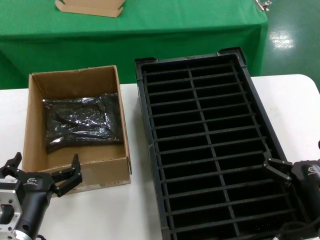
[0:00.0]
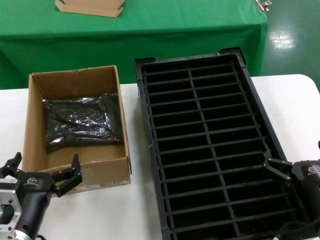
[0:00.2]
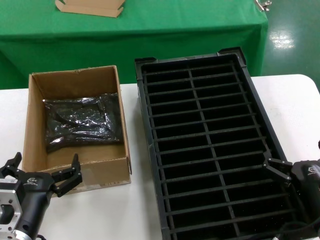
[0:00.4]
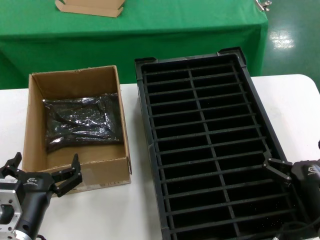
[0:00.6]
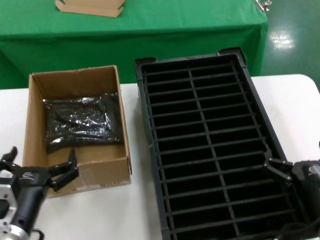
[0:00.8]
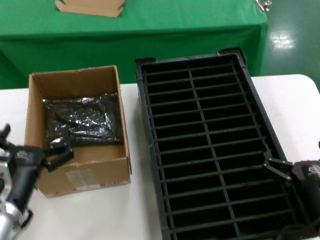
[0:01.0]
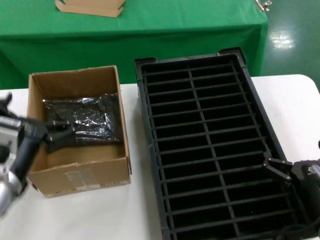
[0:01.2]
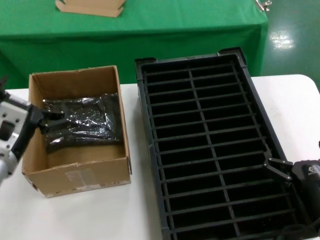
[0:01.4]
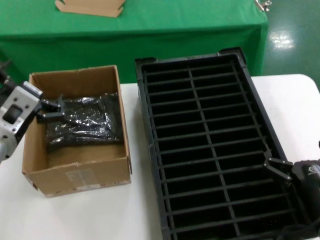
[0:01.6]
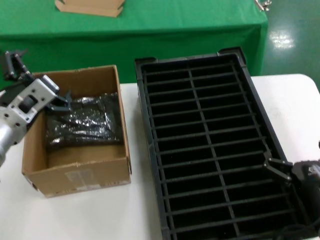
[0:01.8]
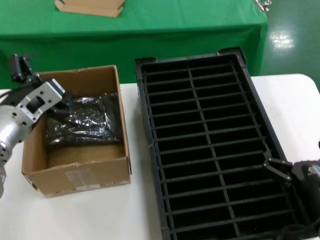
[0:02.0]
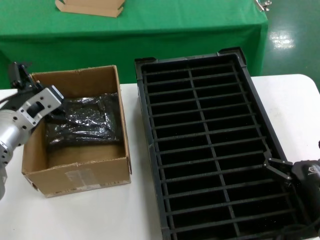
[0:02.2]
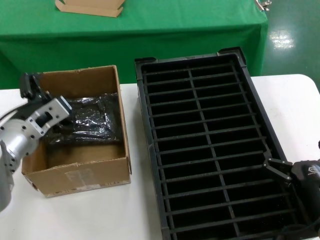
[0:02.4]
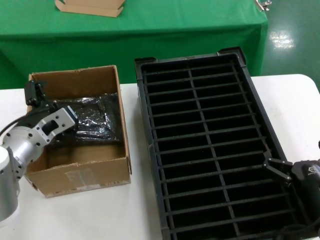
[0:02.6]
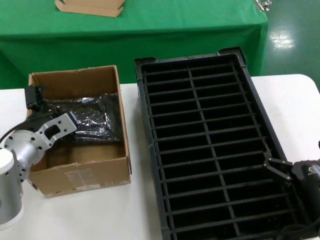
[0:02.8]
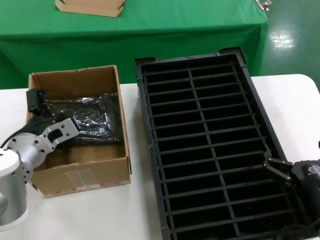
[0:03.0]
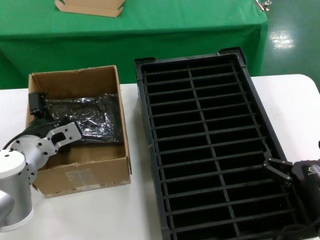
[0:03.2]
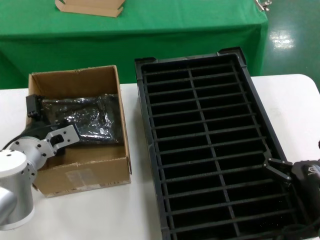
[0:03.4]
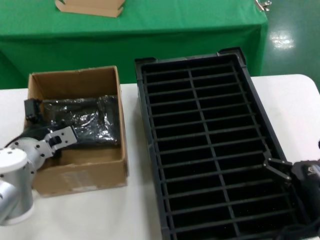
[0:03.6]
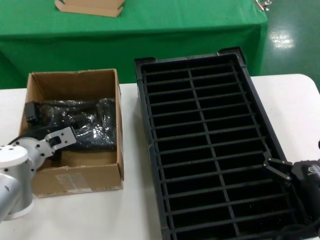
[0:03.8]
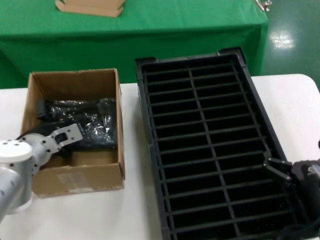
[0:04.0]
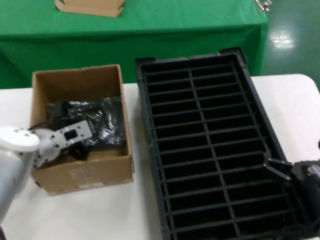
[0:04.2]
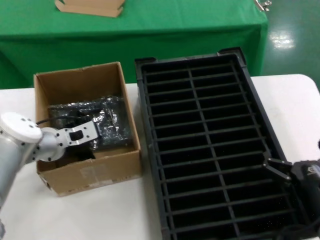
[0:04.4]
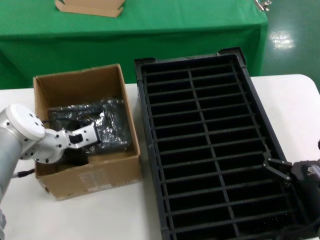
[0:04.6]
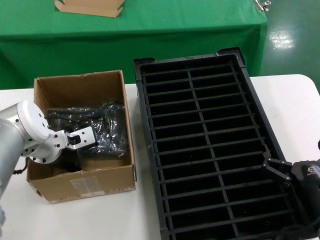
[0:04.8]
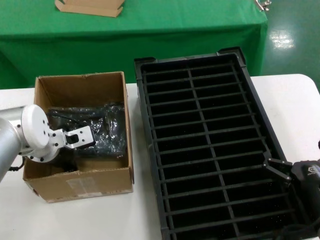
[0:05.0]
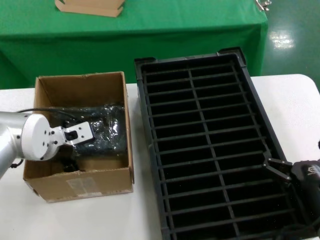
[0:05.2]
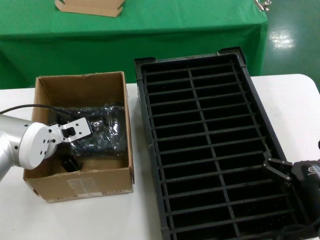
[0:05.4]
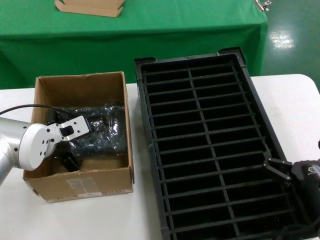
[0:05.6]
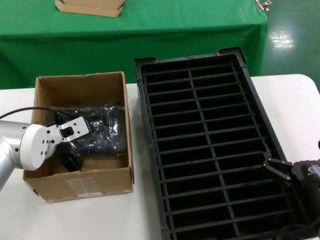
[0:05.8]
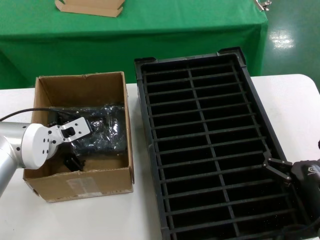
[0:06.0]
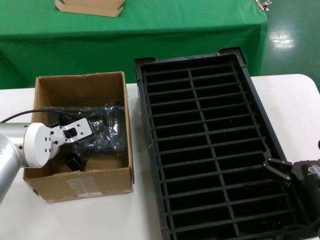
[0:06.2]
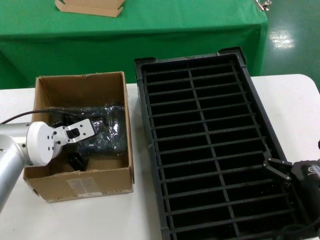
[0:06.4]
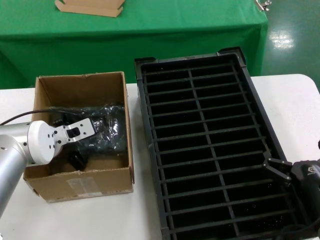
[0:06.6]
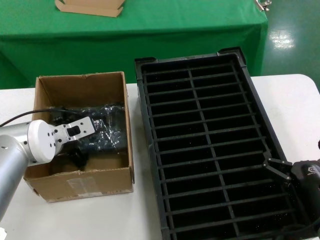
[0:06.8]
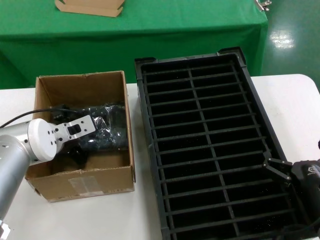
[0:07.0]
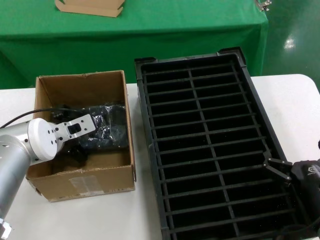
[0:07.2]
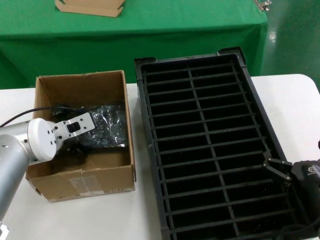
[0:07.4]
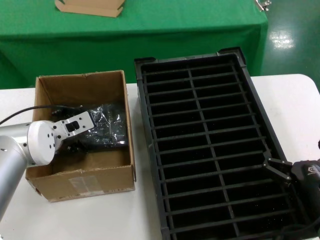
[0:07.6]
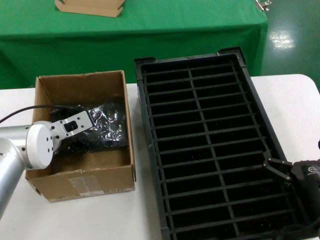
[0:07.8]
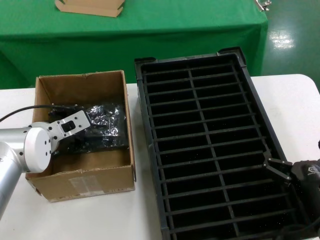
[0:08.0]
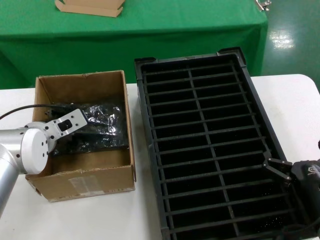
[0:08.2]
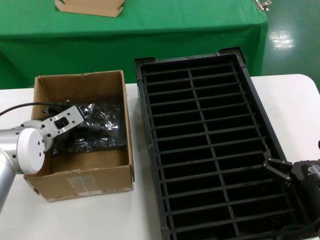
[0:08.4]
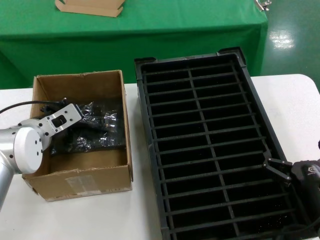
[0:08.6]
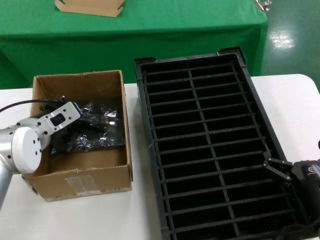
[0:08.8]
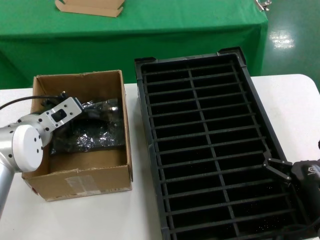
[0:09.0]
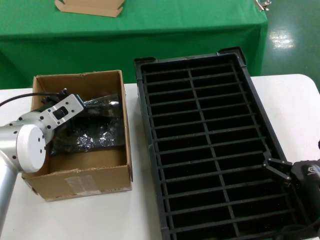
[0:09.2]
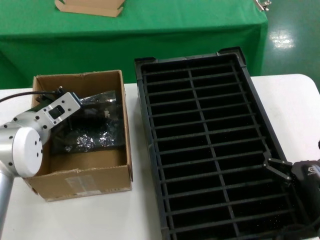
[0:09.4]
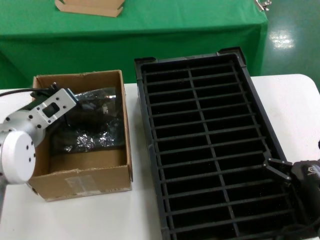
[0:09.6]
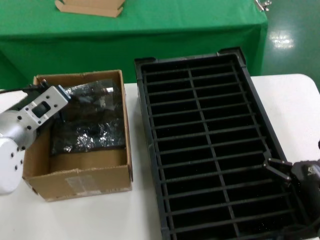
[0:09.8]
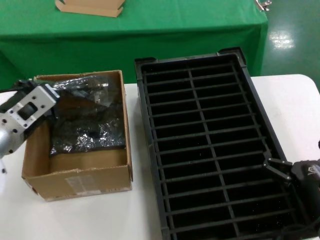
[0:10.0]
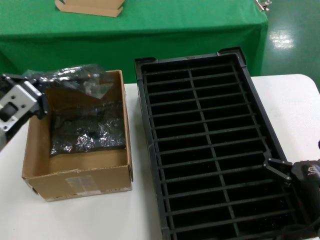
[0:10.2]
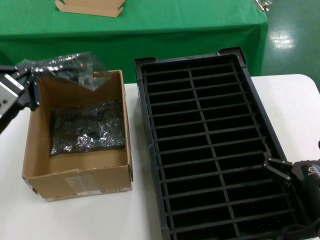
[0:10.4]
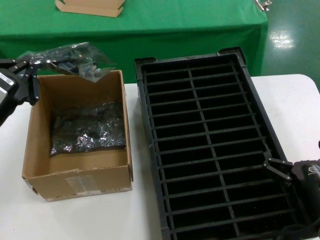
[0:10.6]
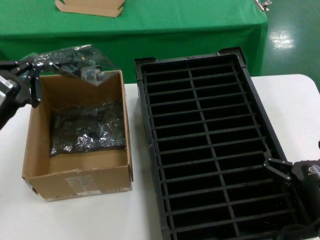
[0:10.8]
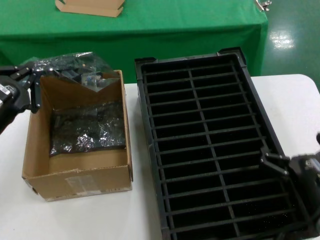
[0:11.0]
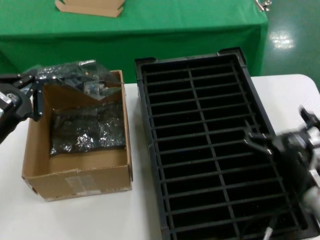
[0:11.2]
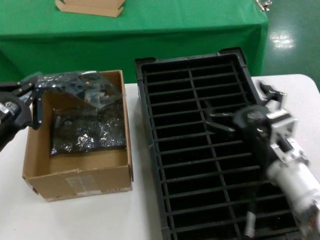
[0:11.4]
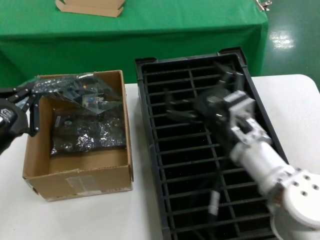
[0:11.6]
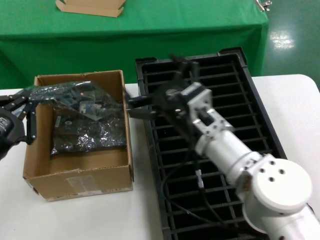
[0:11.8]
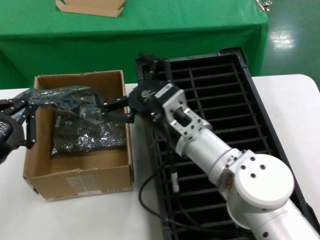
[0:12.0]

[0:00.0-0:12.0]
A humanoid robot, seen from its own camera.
Task of the whole recording: take out graphics card from box remove packaging put into black container.
Step, 0:00.0 to 0:08.6: Grasp the bag.
Step, 0:09.0 to 0:11.0: Lift the bag.
0:00.0 to 0:01.6: The left hand travels upward and forward by approximately 15 cm.
0:01.6 to 0:03.0: The left hand heads forward and downward, covering about 10 cm.
0:03.0 to 0:04.4: The left hand goes some 5 cm forward.
0:04.4 to 0:09.0: The hands stay close to where they were, moving slightly.
0:09.0 to 0:10.4: The left hand shifts some 15 cm backward and upward.
0:10.4 to 0:12.0: The left hand is displaced backward by approximately 10 cm. Meanwhile the right hand moves to the left, forward and upward, approximately 25 cm.

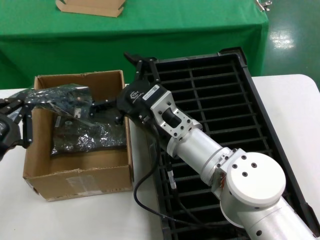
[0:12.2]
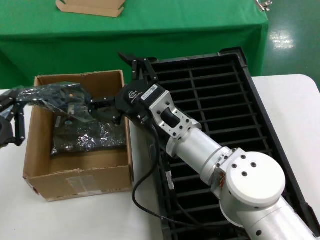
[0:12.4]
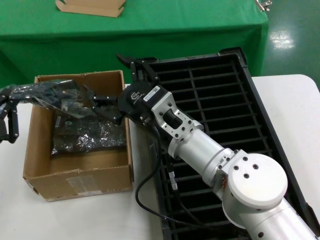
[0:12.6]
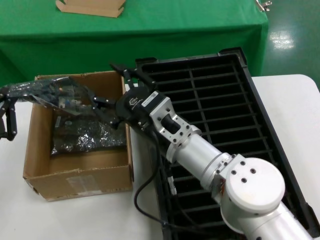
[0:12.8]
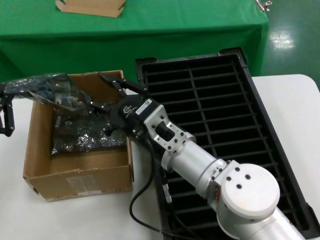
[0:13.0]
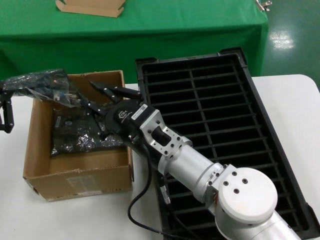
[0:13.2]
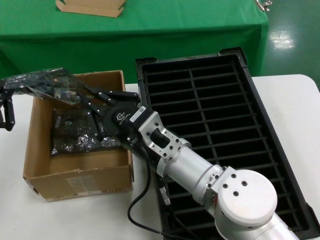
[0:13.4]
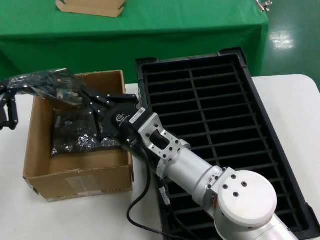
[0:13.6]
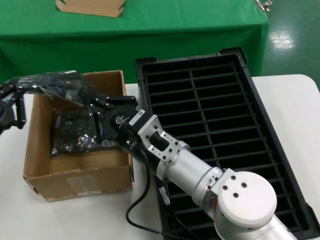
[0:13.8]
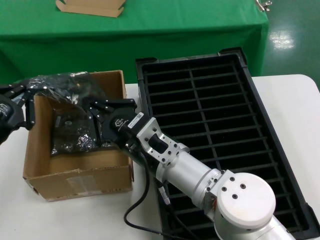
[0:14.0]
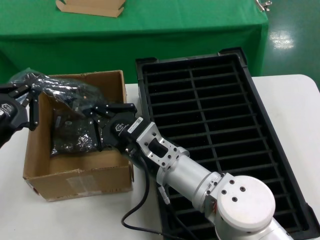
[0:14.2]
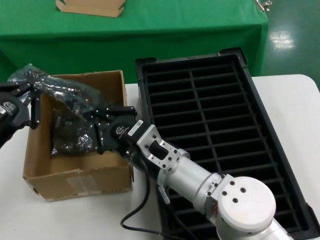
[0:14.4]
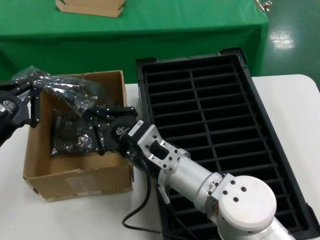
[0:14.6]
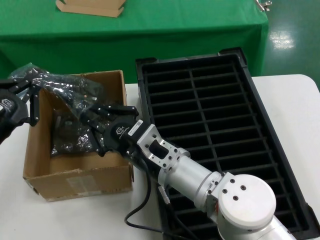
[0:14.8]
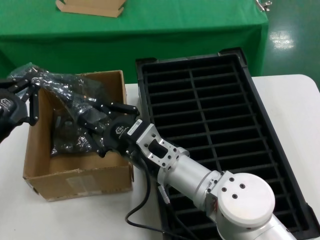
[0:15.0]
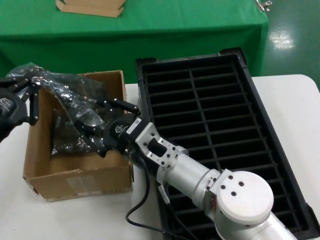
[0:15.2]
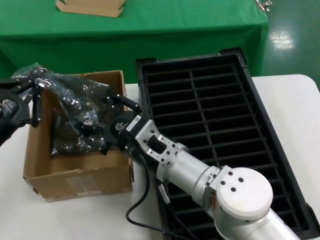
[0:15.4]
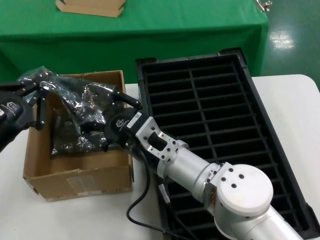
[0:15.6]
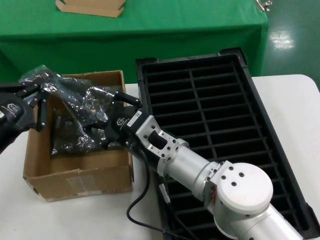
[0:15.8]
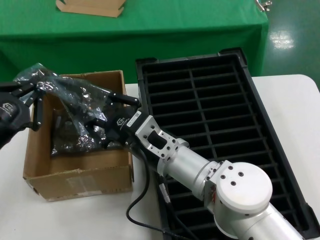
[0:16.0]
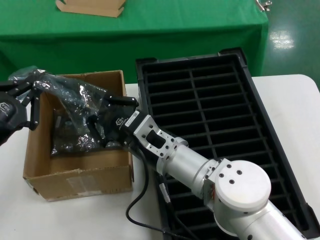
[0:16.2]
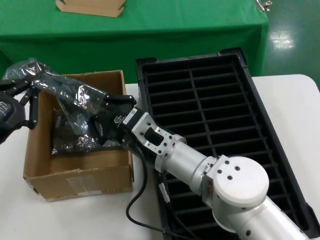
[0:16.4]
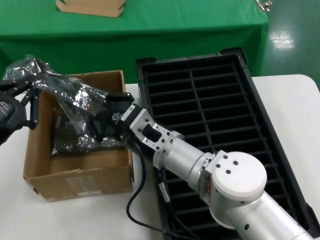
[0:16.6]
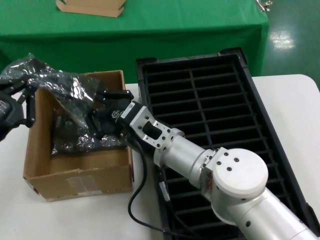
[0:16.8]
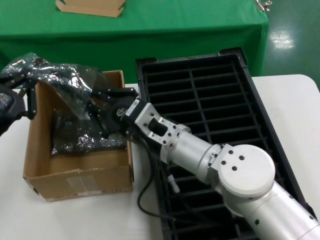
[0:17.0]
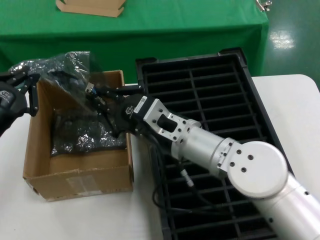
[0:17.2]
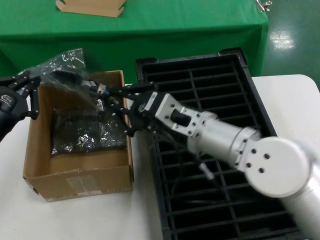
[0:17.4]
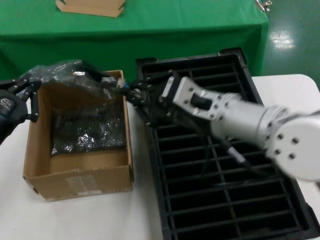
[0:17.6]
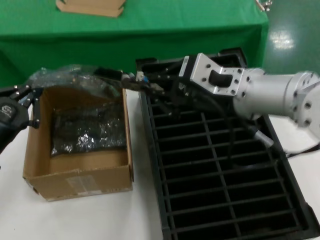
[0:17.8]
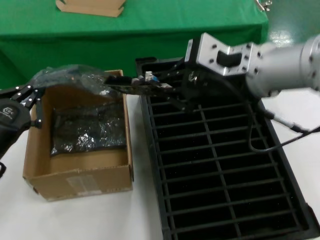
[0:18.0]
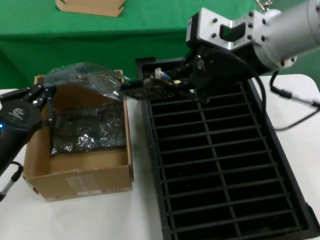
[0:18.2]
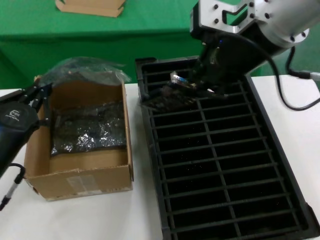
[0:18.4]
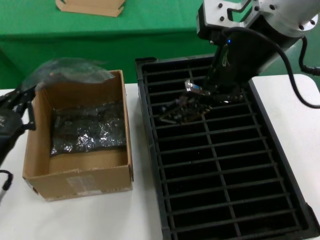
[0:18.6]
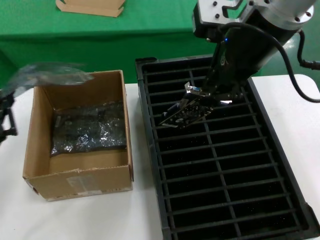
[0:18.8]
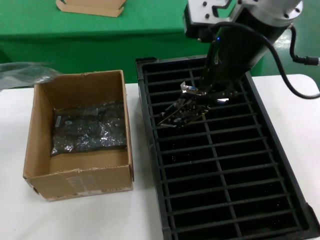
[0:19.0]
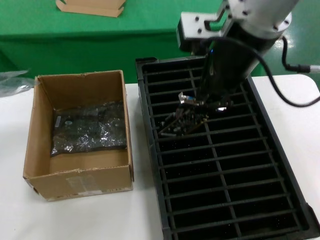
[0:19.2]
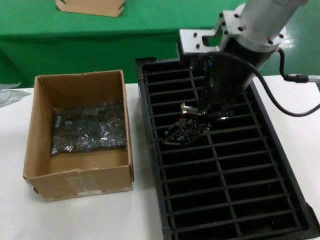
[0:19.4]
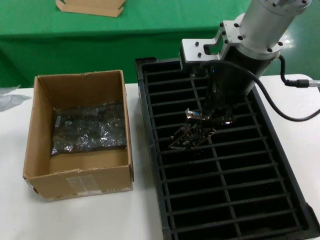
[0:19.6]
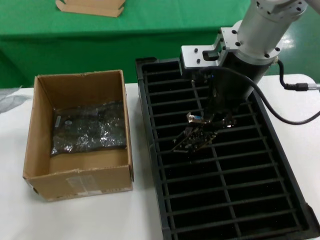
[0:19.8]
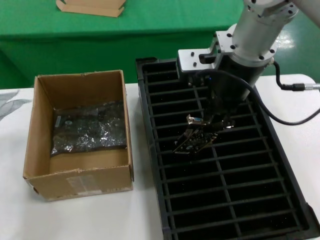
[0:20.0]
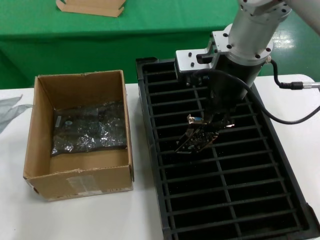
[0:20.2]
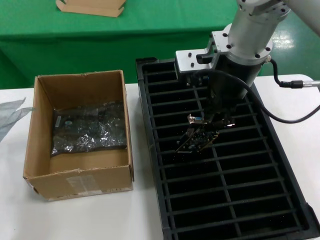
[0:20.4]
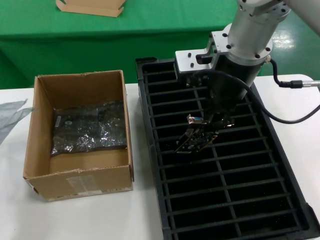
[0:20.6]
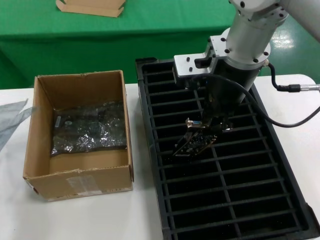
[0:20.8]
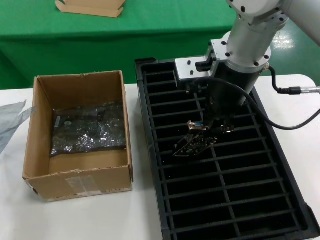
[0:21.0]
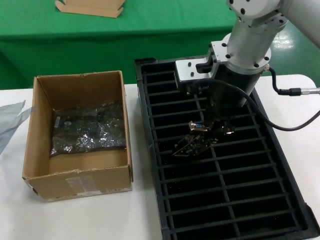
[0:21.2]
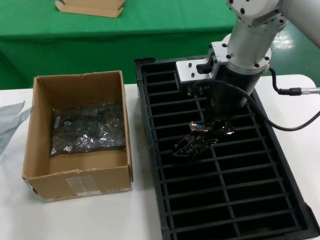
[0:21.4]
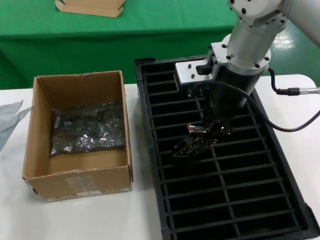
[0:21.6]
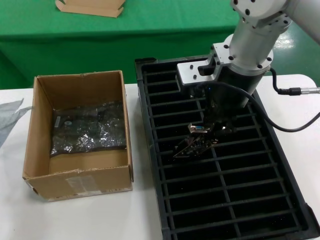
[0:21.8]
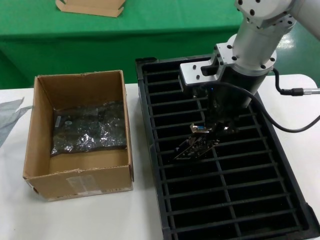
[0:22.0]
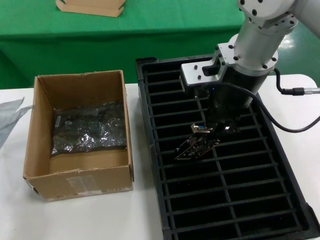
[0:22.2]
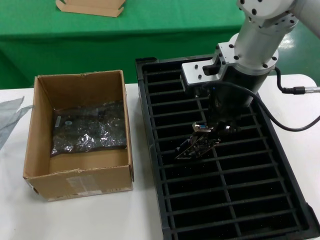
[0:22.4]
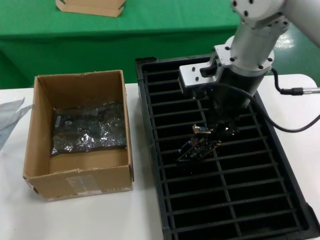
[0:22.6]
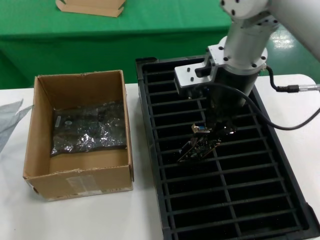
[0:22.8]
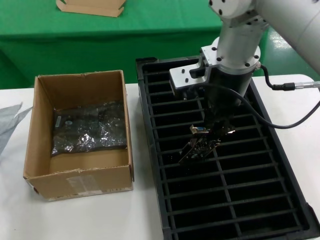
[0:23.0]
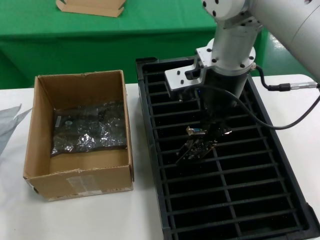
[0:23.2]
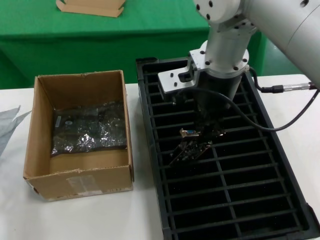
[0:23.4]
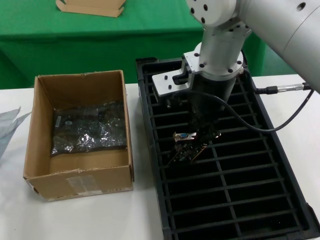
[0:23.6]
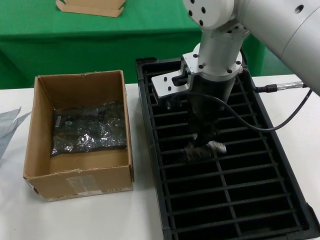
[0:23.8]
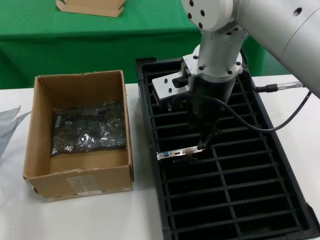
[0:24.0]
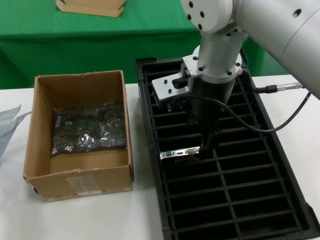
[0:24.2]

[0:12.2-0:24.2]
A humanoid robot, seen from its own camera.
Task of the whole recording: take out graphics card from box remove packaging put into black container.
Step, 0:12.2 to 0:18.0: Take out the hard disk of the bag.
0:12.2 to 0:13.8: The left hand moves approximately 5 cm.
0:13.8 to 0:16.6: The hands move only a little.
0:16.6 to 0:18.2: The right hand moves upward and to the right, roughly 30 cm. The left hand shifts some 10 cm downward and forward.
0:18.2 to 0:19.8: The left hand goes roughly 15 cm downward, to the left and backward. Meanwhile the right hand heads forward, covering approximately 5 cm.
0:19.8 to 0:21.2: The left hand shifts about 5 cm downward.
0:21.2 to 0:22.6: Neither hand changes place.
0:22.6 to 0:24.2: The right hand travels to the left by about 5 cm.
